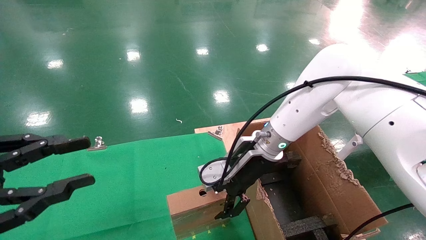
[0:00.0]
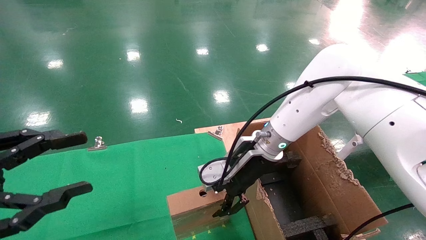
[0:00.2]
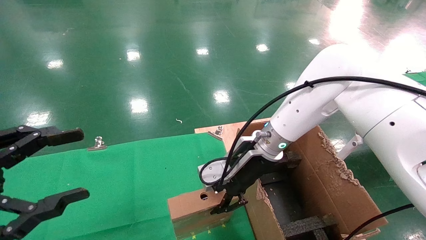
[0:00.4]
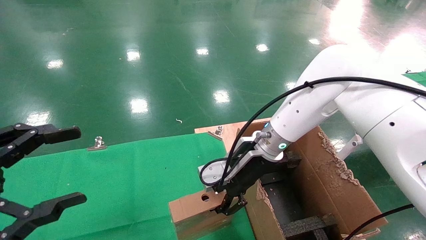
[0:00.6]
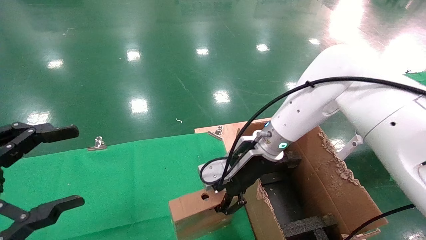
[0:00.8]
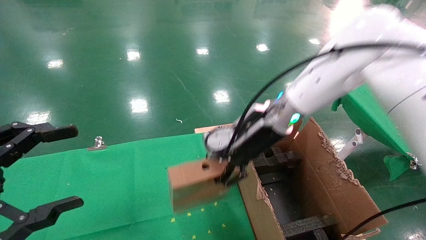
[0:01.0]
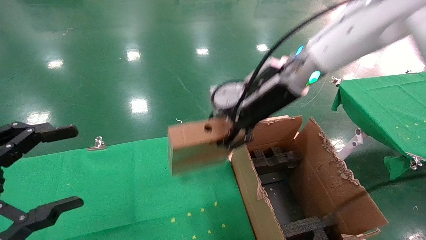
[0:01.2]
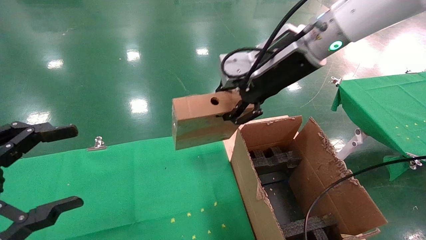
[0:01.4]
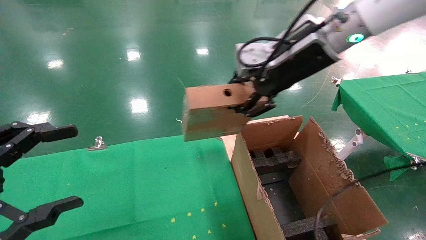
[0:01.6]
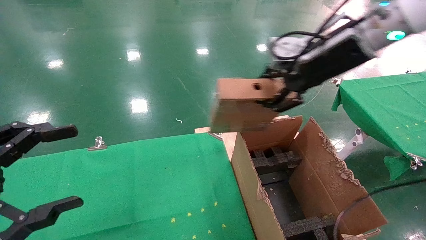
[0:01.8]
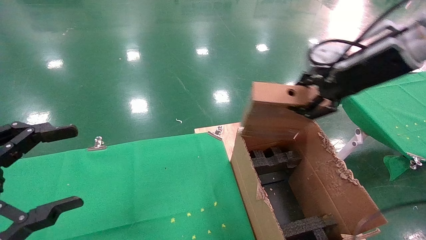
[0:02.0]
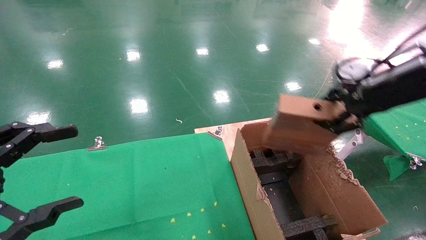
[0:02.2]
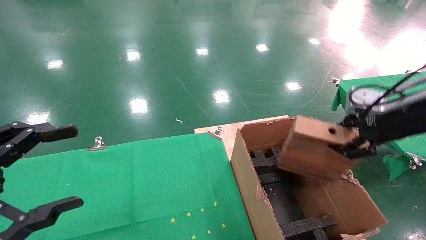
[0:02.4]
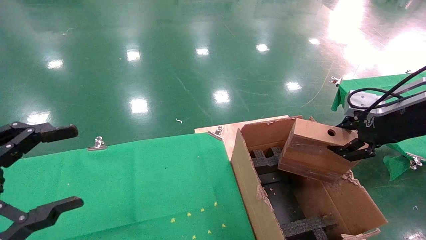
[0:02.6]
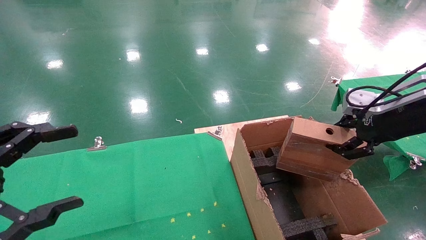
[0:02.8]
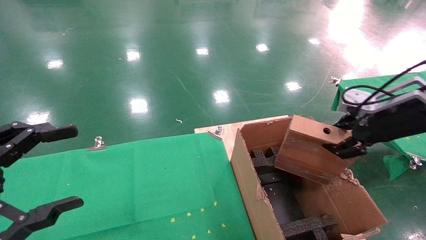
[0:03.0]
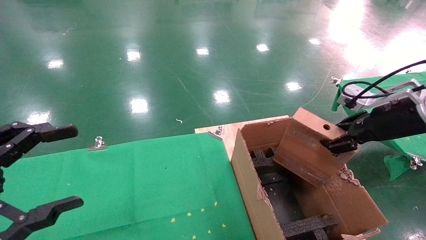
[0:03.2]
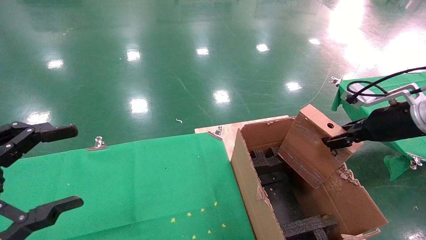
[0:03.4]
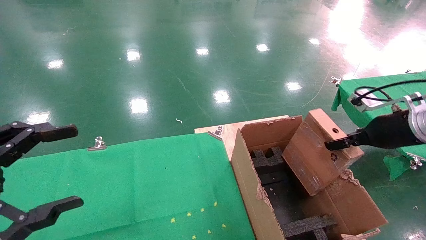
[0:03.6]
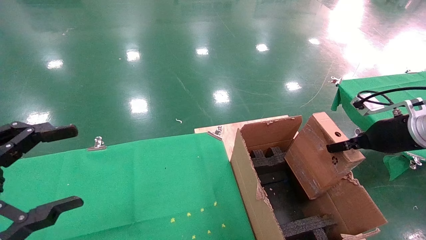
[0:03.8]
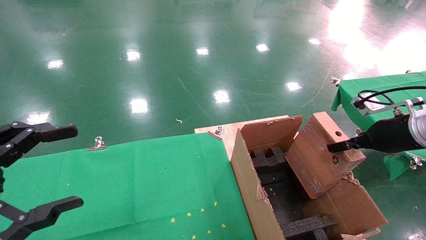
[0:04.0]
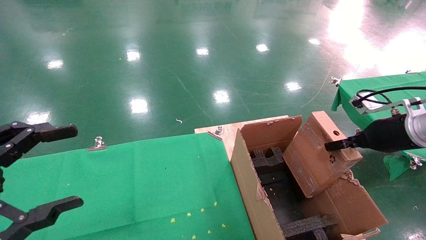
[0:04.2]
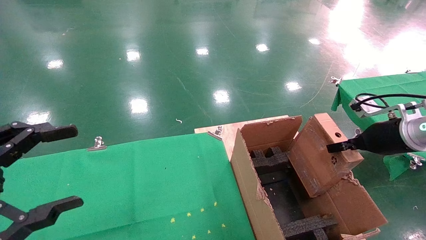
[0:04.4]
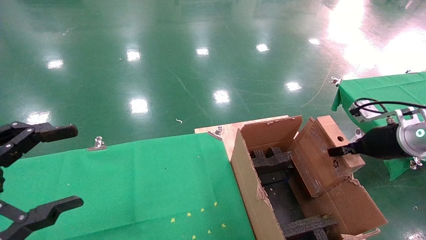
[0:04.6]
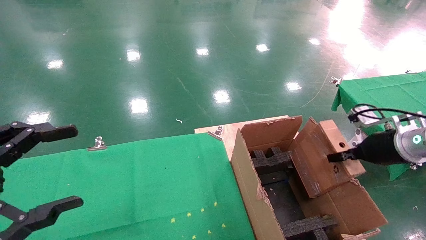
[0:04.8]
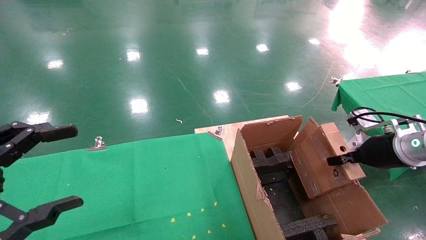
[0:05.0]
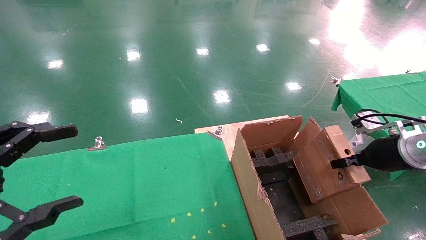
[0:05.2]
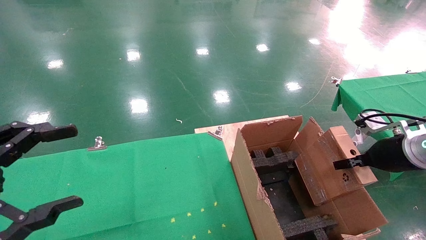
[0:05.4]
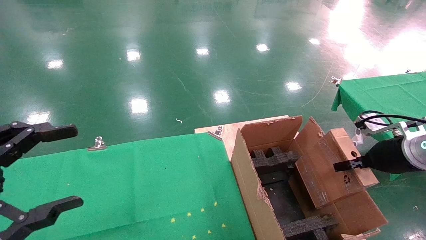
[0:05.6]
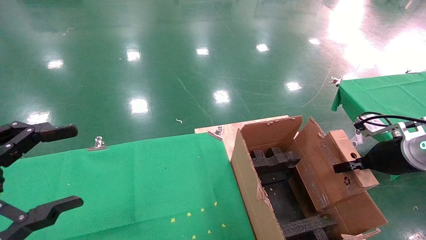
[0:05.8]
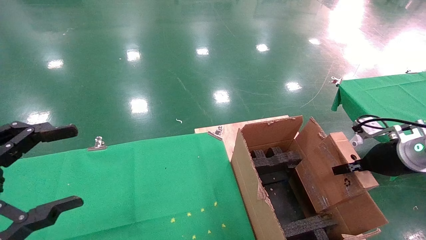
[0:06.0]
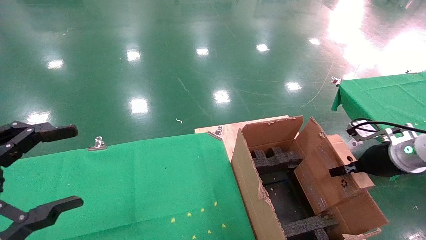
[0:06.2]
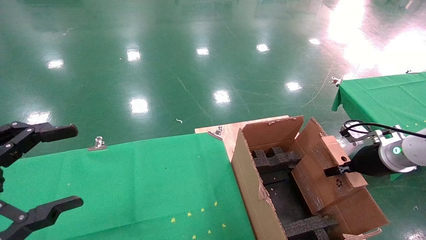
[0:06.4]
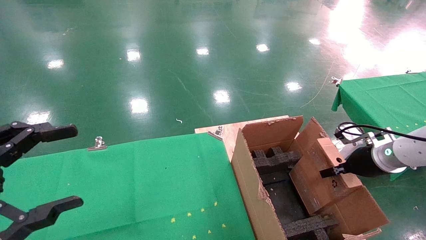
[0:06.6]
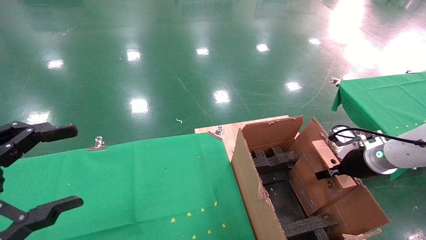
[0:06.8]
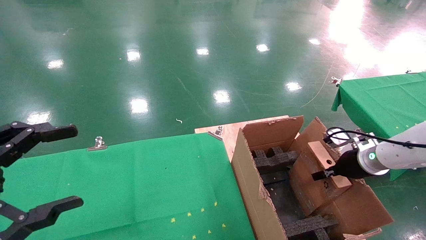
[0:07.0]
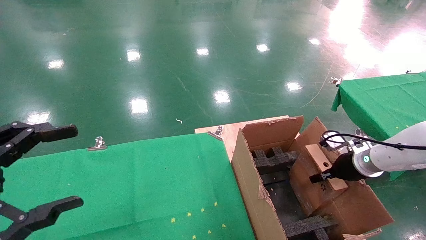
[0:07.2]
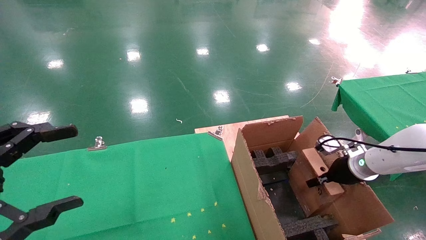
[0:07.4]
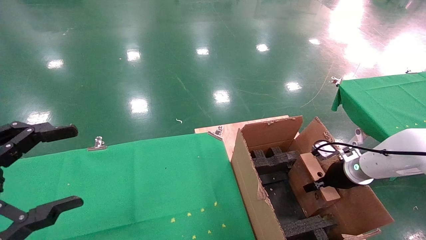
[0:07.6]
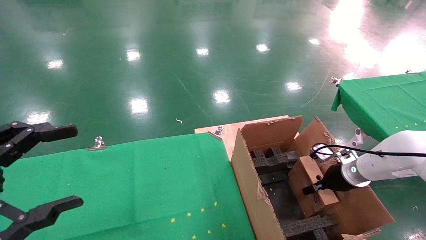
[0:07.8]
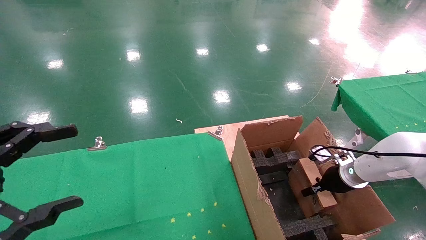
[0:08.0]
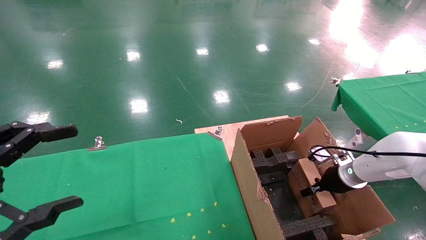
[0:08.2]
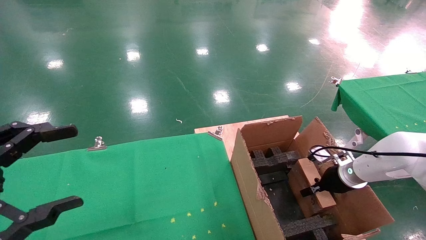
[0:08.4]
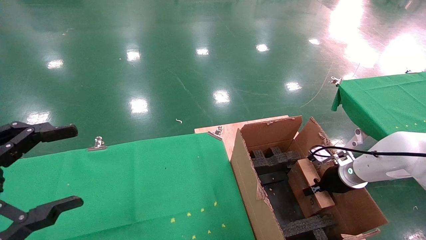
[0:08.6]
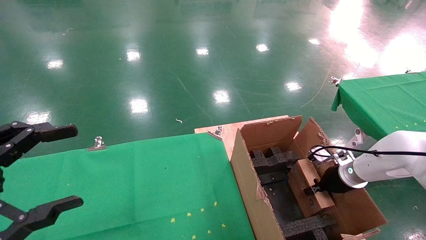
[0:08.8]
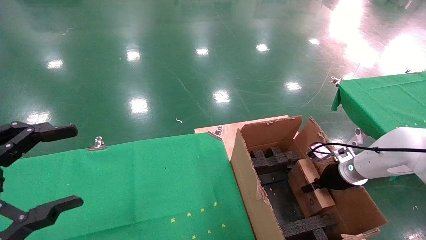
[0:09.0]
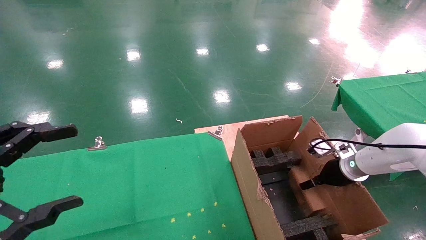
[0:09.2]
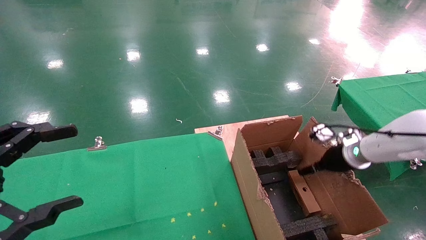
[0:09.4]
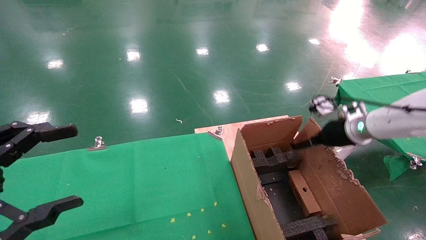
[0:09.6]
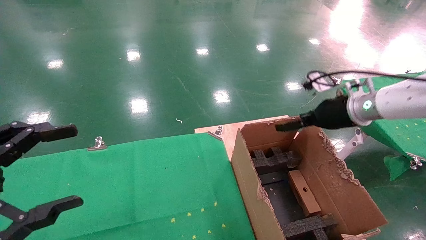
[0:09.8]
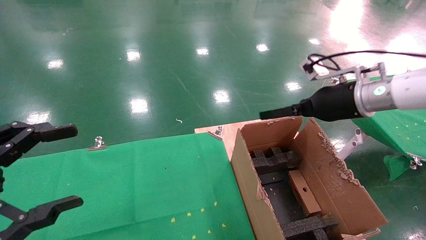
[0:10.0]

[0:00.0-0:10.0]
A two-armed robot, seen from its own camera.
Task of the whole recording: using a robotic arm to pick up a cardboard box and palace it the carton.
Step, 0:00.6 to 0:09.0: Place the mouse and the power cord paper box into the container.
0:00.0 to 0:01.4: The left gripper opens up. Meanwhile the right gripper goes roughly 20 cm upward, and closes.
0:01.4 to 0:02.8: The right gripper goes some 20 cm to the right.
0:02.8 to 0:04.2: The right gripper is displaced downward by approximately 5 cm.
0:04.2 to 0:05.8: The grippers move only a little.
0:05.8 to 0:07.2: The right gripper is displaced forward and downward by some 10 cm.
0:07.2 to 0:08.6: The right gripper moves roughly 5 cm.
0:08.6 to 0:10.0: The right gripper heads upward, covering roughly 20 cm, and opens its fingers.

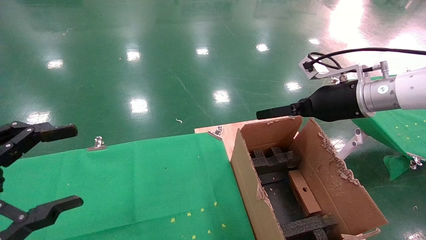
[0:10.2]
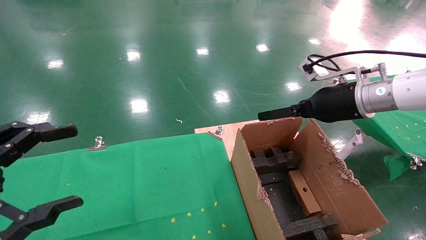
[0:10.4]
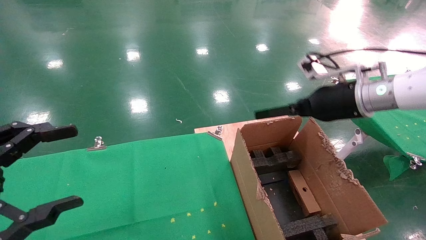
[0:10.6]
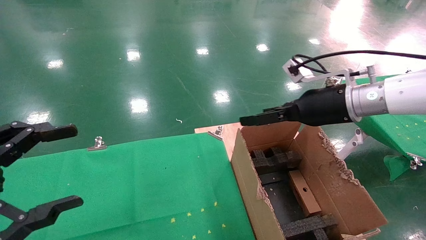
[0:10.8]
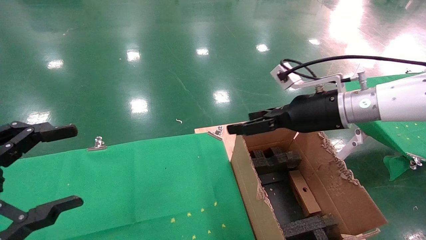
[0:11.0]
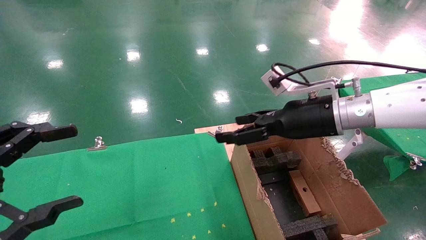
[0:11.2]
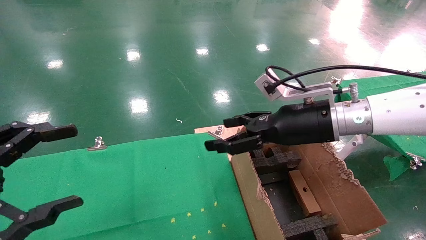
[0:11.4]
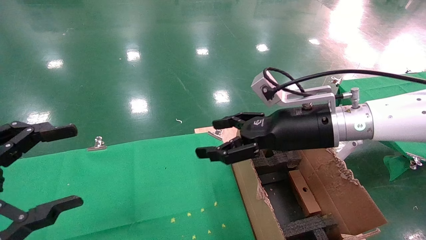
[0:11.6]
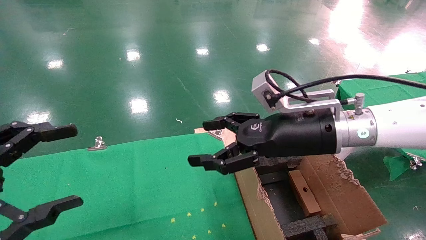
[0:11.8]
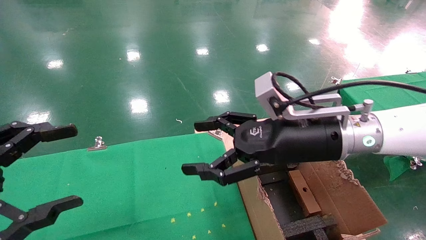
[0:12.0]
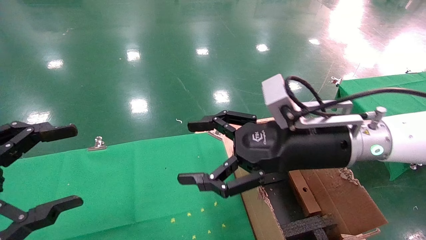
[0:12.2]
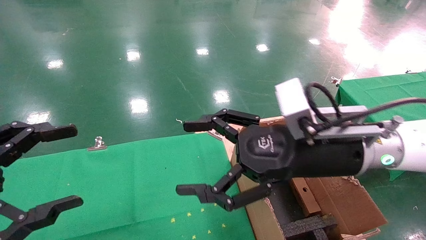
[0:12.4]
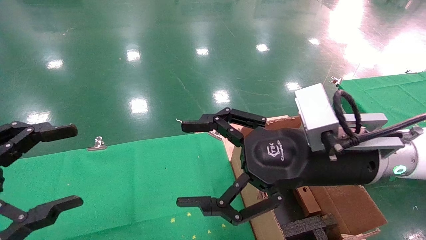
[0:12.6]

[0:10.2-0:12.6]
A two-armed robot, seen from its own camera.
Task of the whole recording: using a robotic arm to pick up a cardboard box and palace it the carton.
0:10.2 to 0:11.4: The right gripper is displaced to the left by some 10 cm.
0:11.4 to 0:12.6: The right gripper shifts about 10 cm backward.
